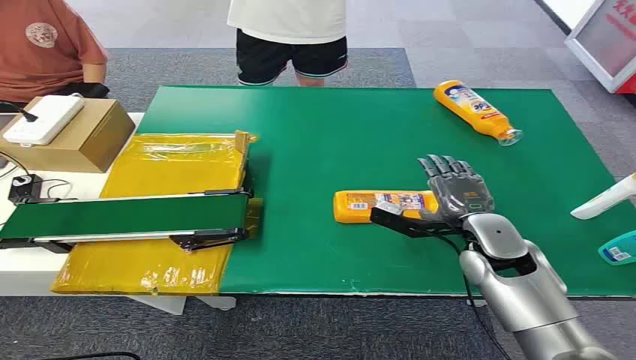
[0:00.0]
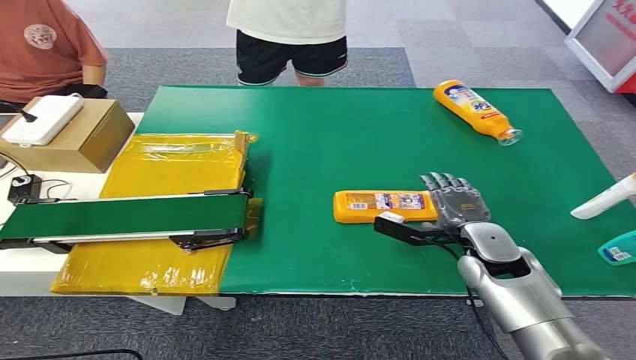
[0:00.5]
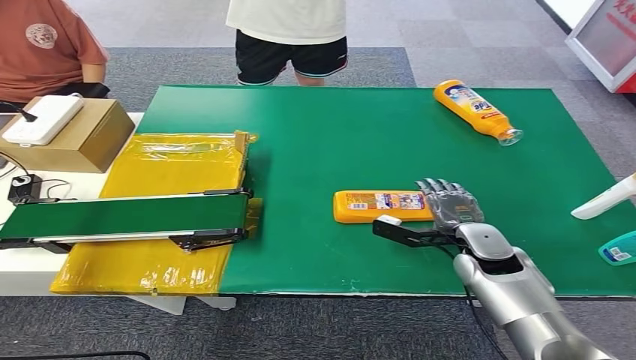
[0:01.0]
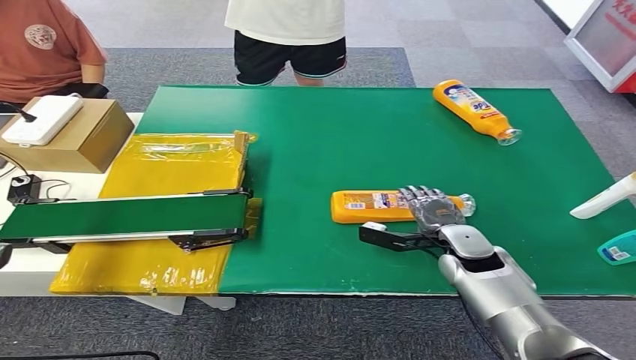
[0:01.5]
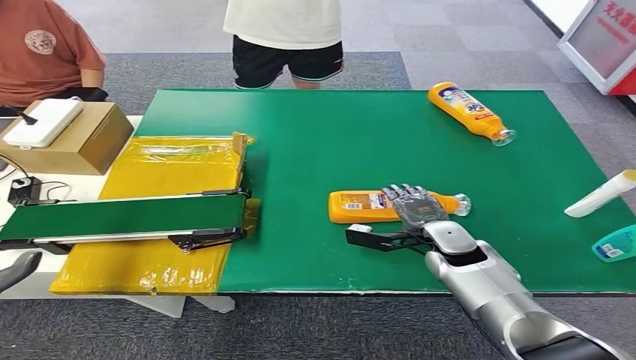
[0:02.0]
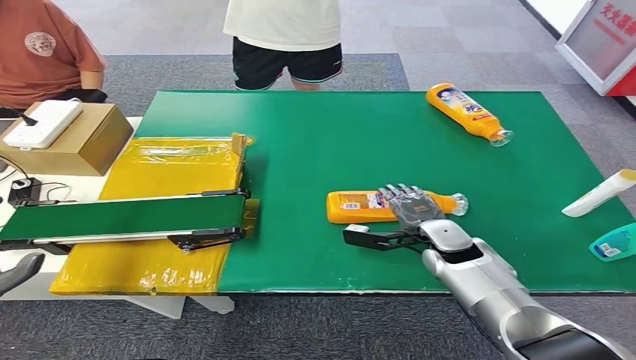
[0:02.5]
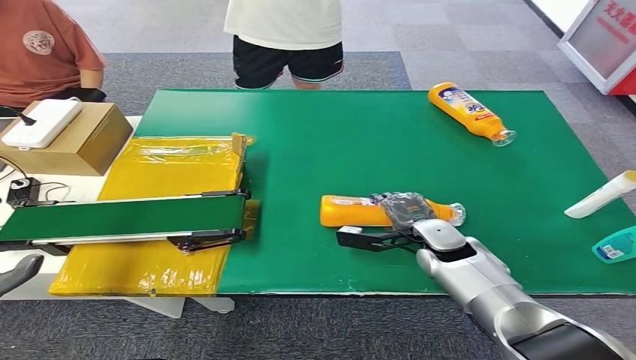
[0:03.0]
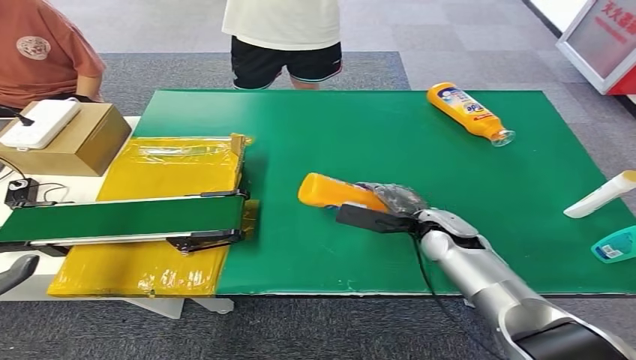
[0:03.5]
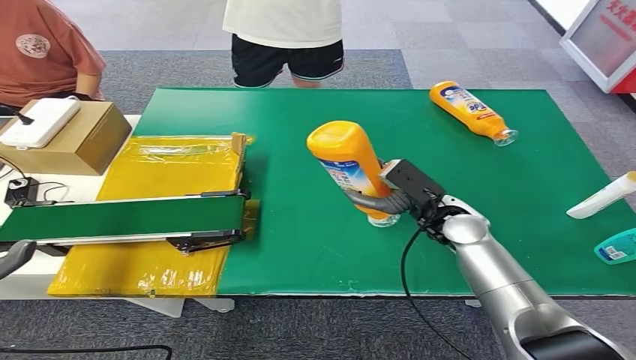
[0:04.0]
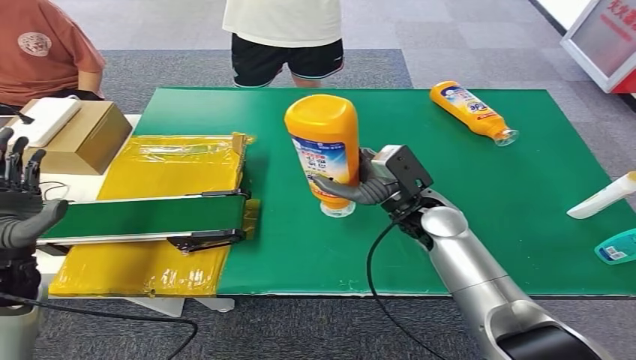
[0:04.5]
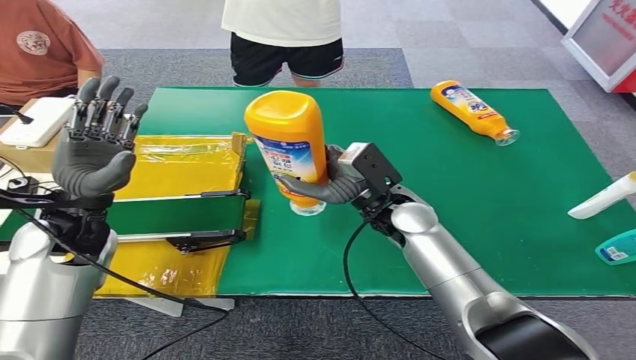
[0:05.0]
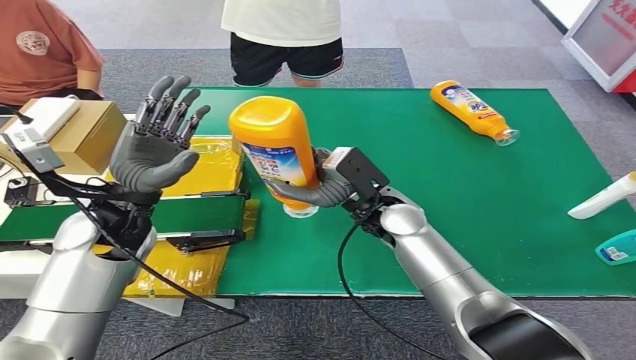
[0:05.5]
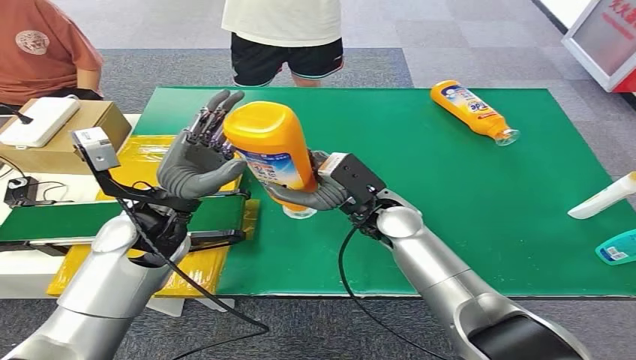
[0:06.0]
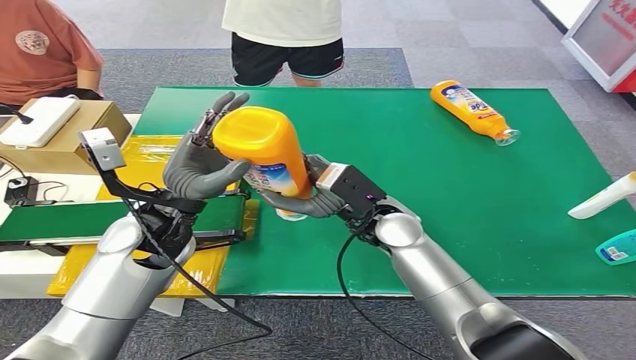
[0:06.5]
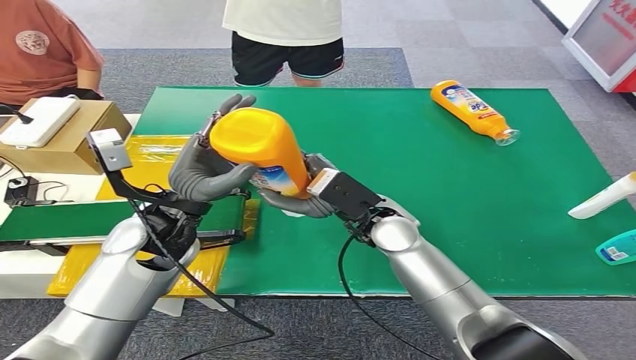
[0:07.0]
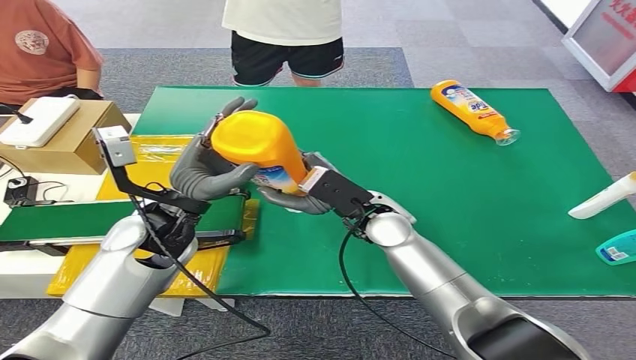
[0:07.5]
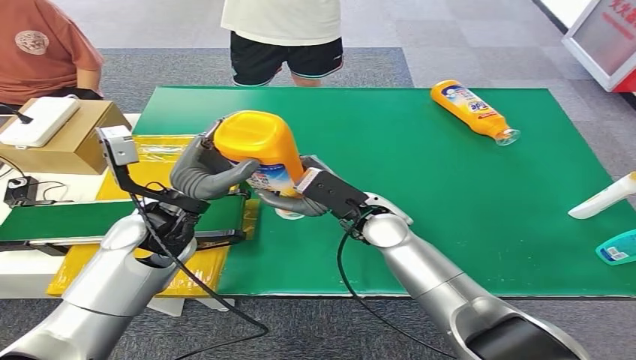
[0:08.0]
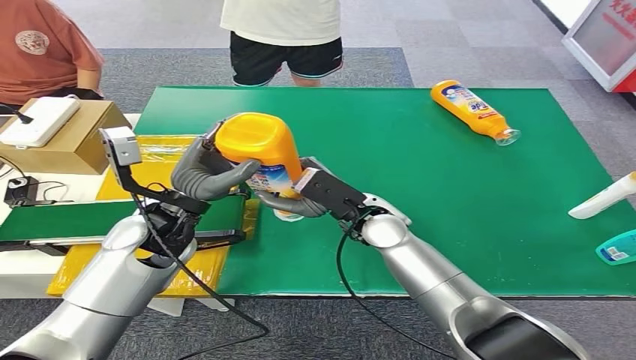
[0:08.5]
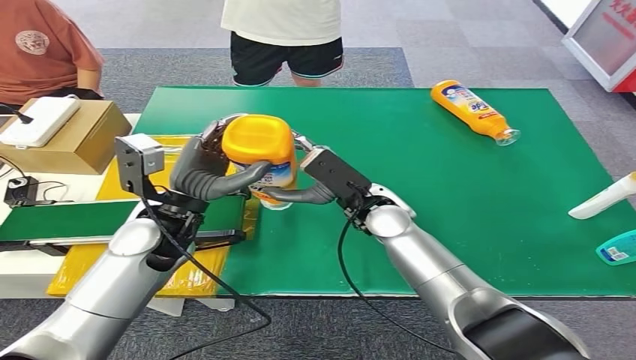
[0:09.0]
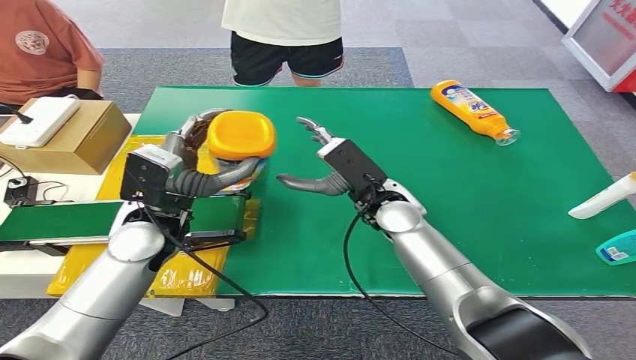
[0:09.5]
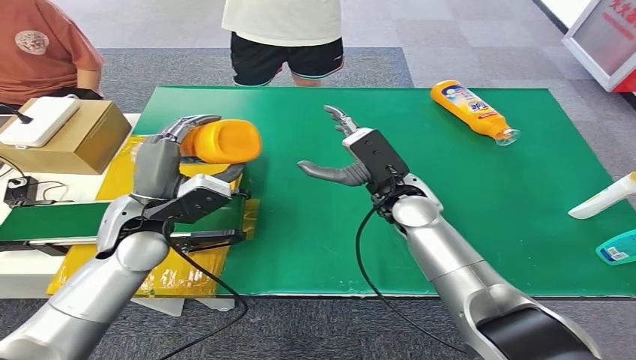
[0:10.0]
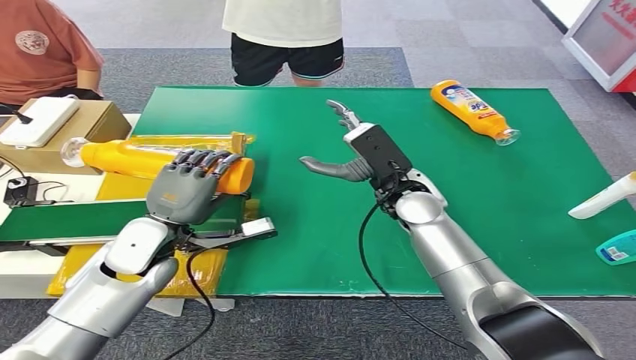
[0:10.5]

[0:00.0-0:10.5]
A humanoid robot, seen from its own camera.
Step, 0:00.0 to 0:03.5: Pick up the bottle from the table.
0:02.0 to 0:04.0: The right hand heads upward, covering approximately 5 cm.
0:06.5 to 0:08.5: The hands make only small movements.

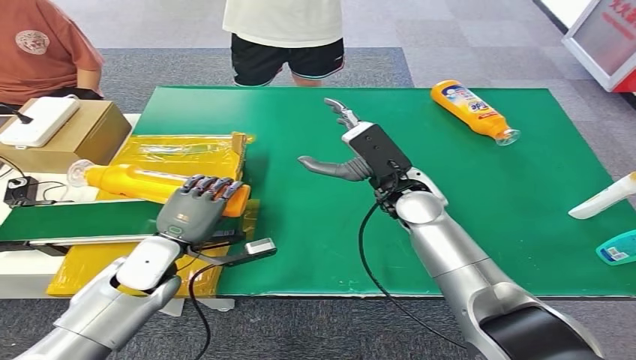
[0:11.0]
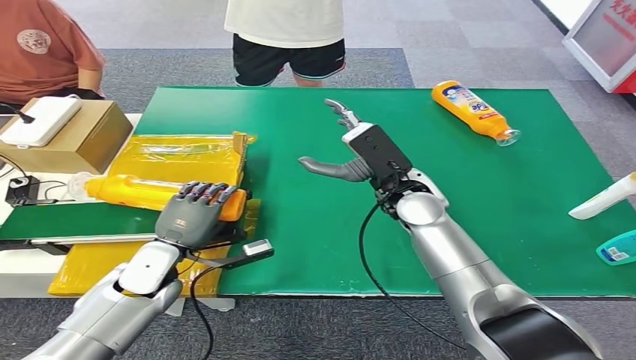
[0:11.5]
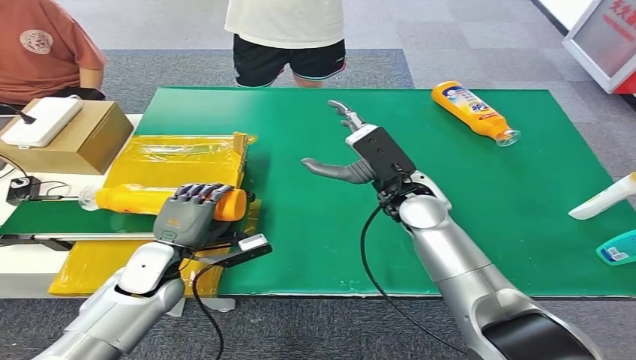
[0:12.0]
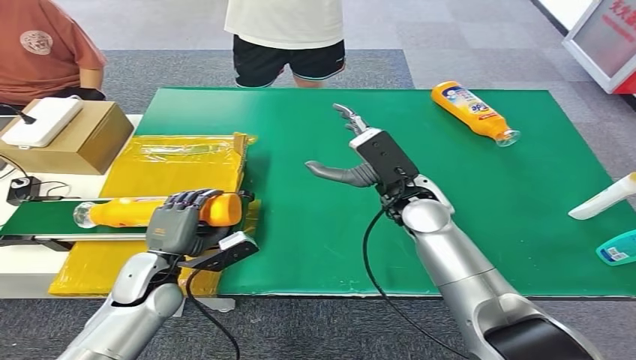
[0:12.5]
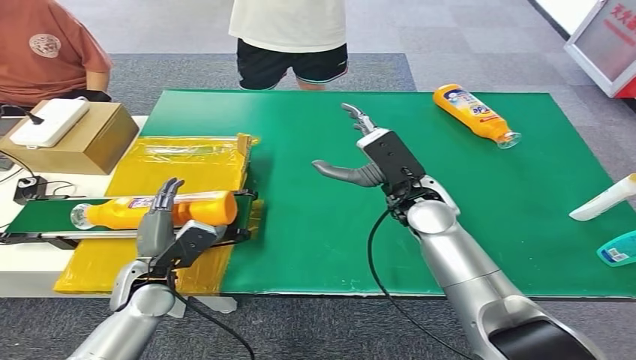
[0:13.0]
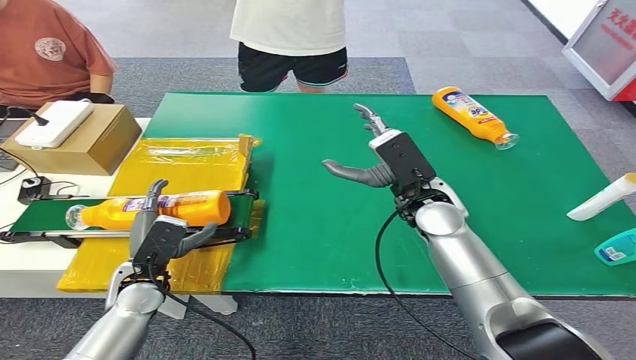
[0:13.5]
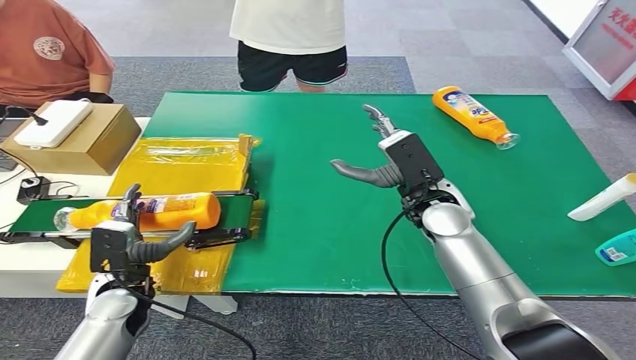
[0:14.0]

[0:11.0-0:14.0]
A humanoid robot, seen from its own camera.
Step, 0:11.0 to 0:14.0: Turn the bottle to the front side.
